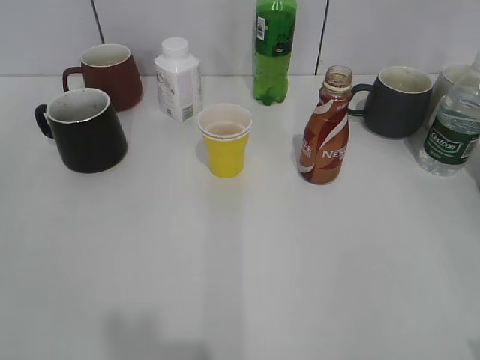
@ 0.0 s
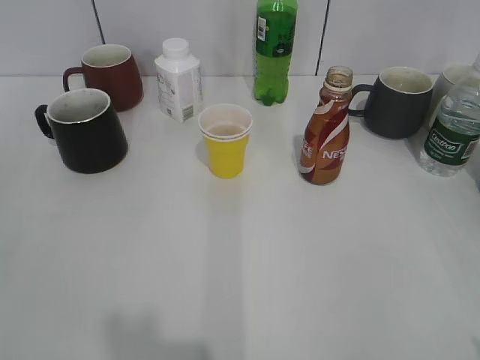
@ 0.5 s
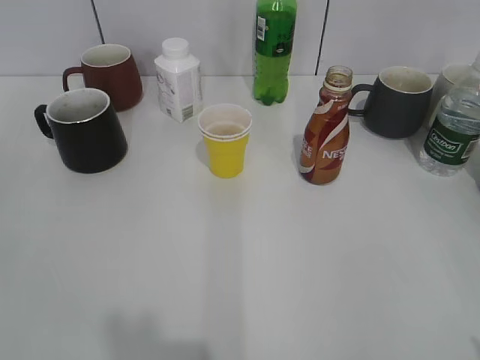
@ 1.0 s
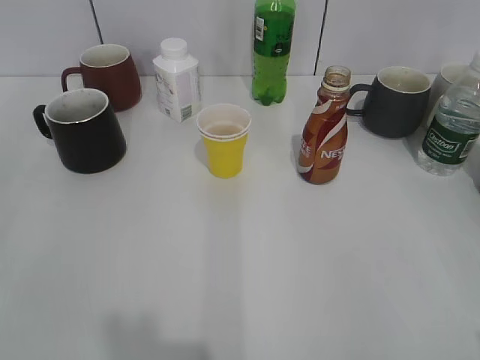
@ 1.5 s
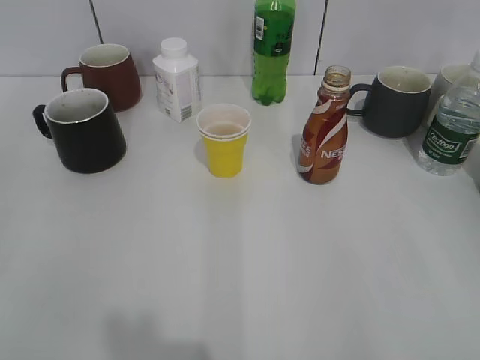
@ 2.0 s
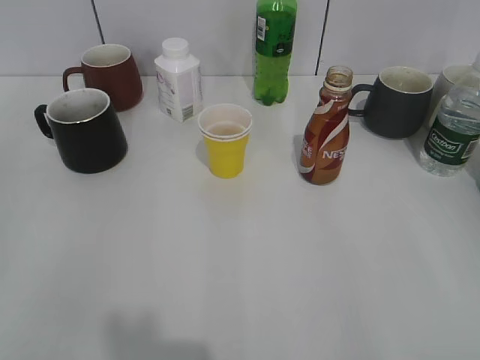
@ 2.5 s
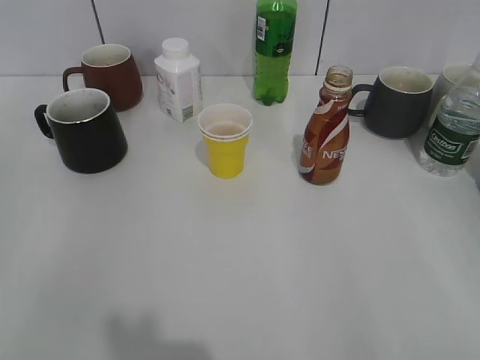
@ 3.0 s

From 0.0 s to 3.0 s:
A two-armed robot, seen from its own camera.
From 0.0 s to 1.5 s: The grippers make only small movements.
From 1.5 s to 3.0 s: The grippers move only a little.

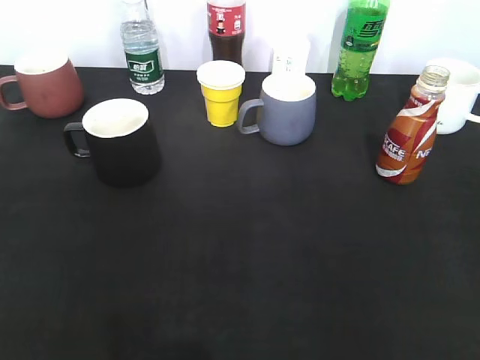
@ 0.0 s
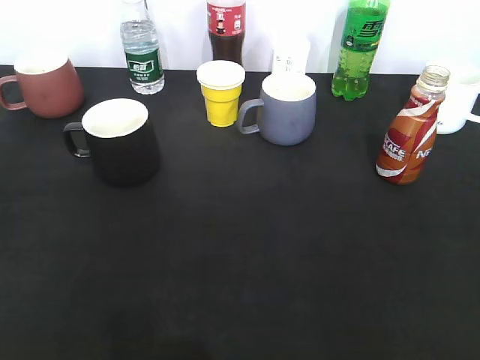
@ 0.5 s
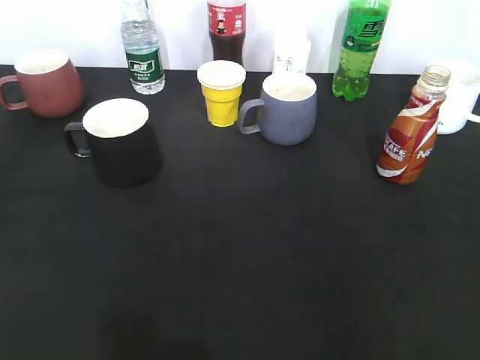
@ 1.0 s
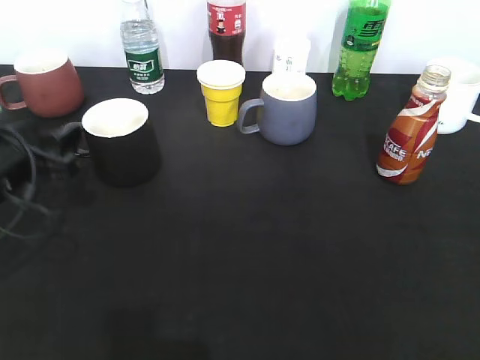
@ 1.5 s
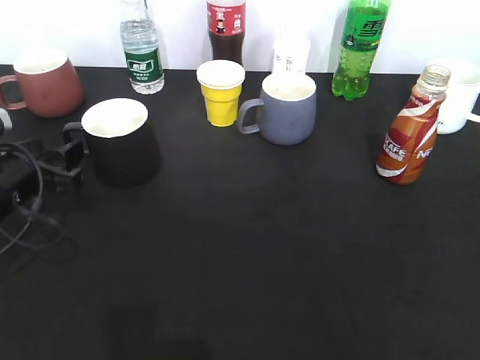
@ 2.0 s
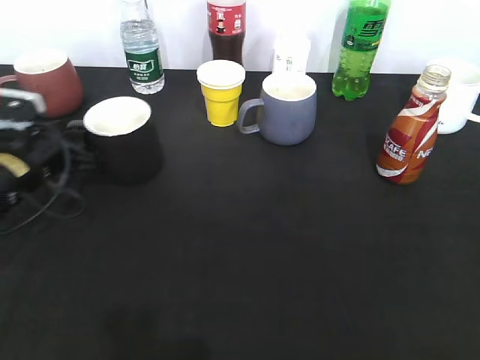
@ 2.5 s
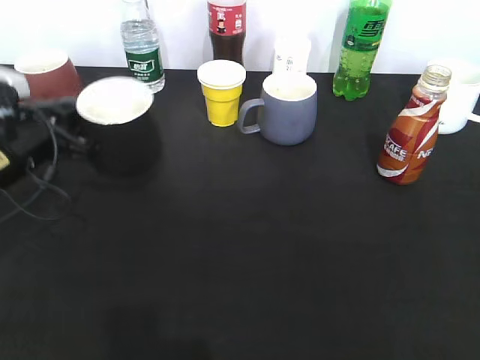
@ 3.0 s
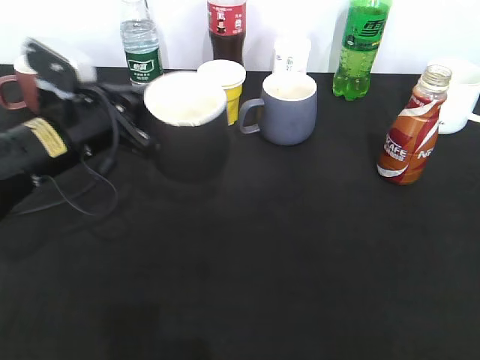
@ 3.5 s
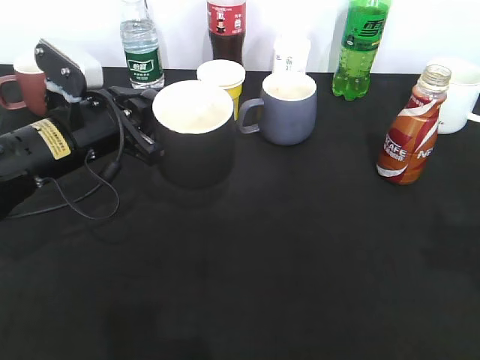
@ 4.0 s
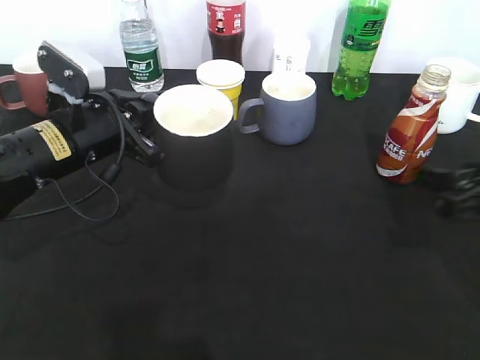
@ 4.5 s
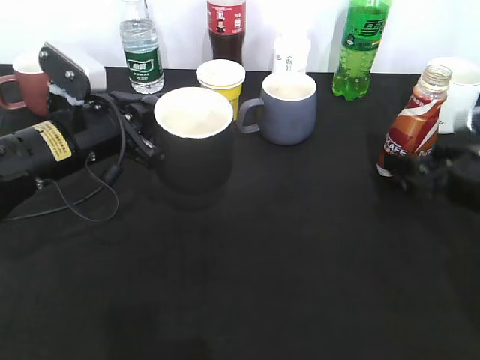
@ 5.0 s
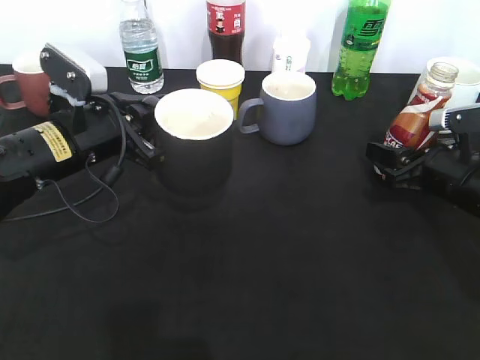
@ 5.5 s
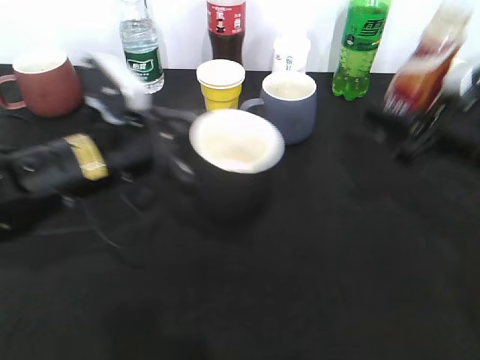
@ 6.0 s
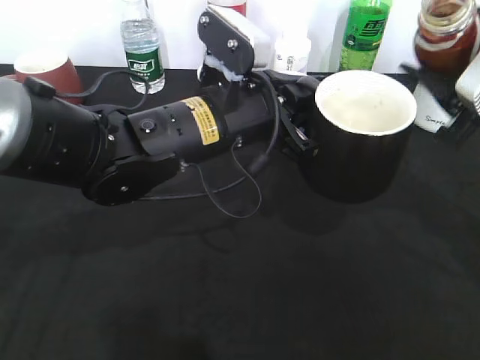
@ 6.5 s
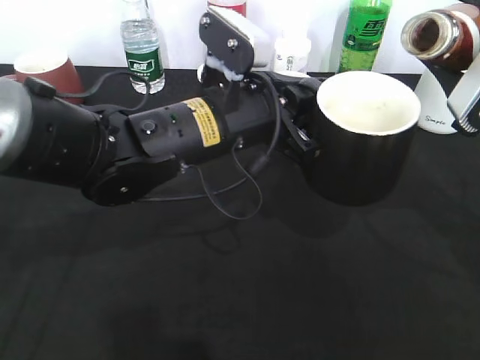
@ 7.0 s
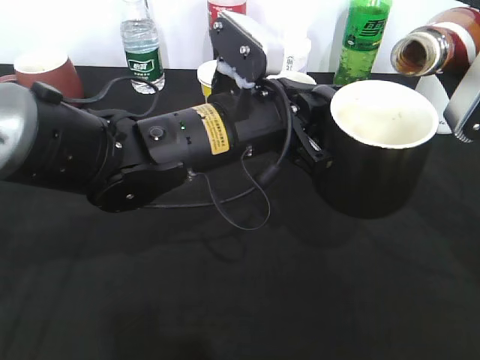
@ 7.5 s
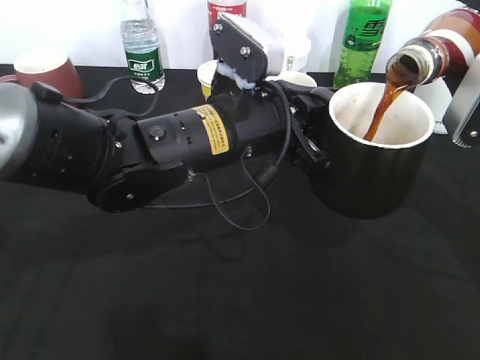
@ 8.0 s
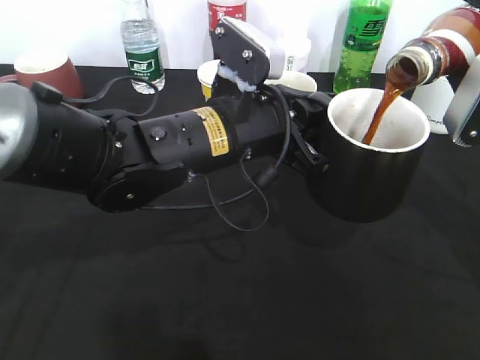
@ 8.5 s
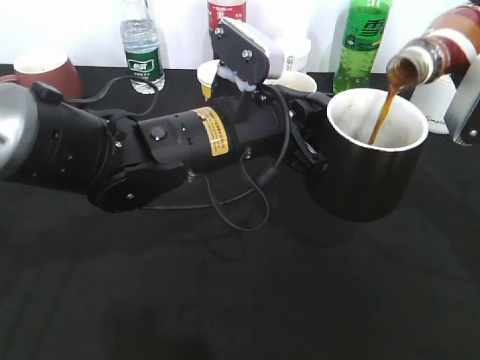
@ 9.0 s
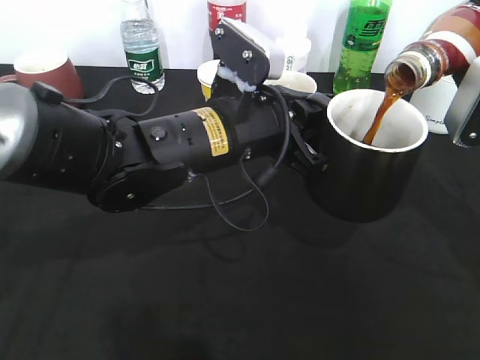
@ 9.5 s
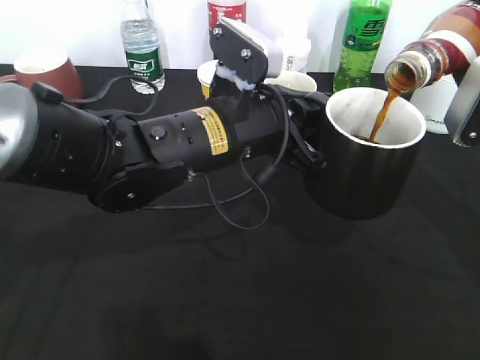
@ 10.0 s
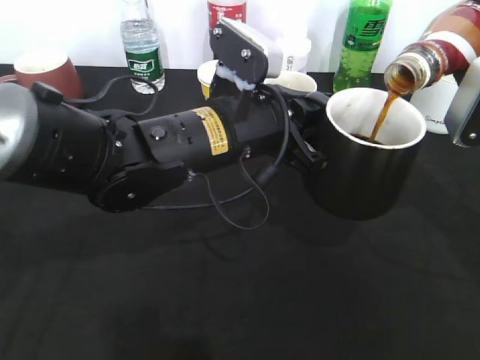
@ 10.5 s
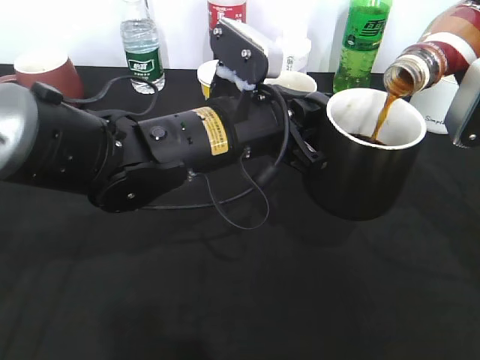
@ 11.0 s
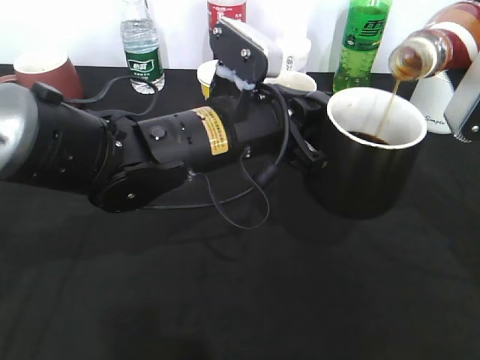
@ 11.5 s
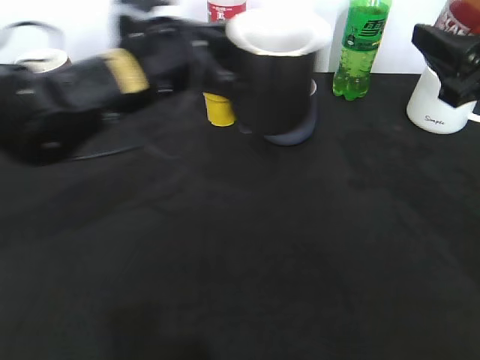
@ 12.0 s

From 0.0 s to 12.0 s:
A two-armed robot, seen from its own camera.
Step, from 1.0 s to 2.5 s: Grasp the black cup with left gripper.
Step, from 4.0 s to 5.0 s: Grasp the bottle with coffee with right gripper.
Step, from 6.0 s to 11.5 s: Pour the coffee from bottle to cup with right gripper.
From 0.0 s to 2.0 s: The left gripper travels forward and downward by some 30 cm.
From 2.0 s to 4.0 s: The right gripper goes some 15 cm forward. Meanwhile the left gripper heads to the right, covering some 10 cm, and closes its fingers.
From 4.0 s to 6.0 s: The right gripper heads forward and downward, covering roughly 20 cm, and closes. Meanwhile the left gripper changes place by approximately 5 cm.
From 6.0 s to 8.0 s: The right gripper heads upward, covering approximately 5 cm. The left gripper is displaced to the right by approximately 10 cm.
From 8.0 s to 10.0 s: The grippers move only a little.
From 10.0 s to 12.0 s: The left gripper shifts roughly 10 cm to the left.

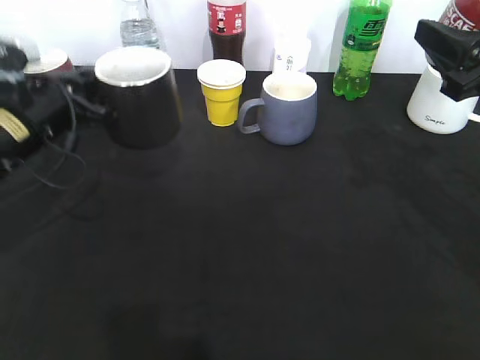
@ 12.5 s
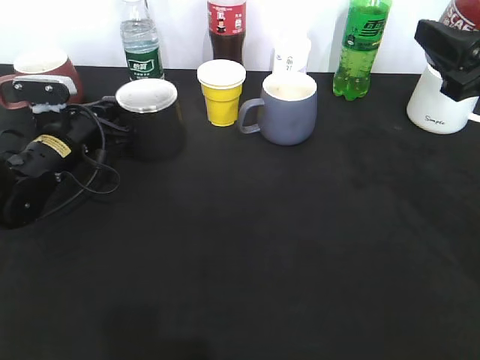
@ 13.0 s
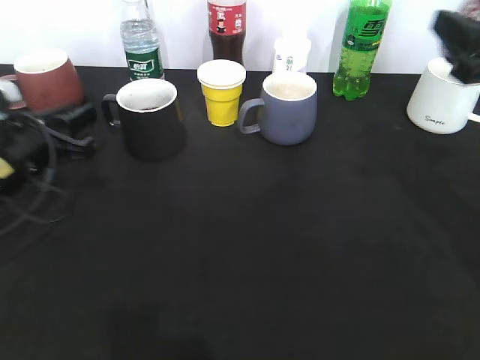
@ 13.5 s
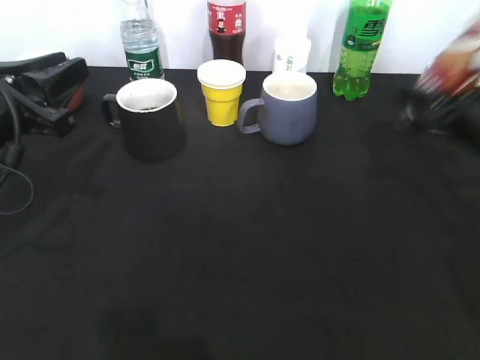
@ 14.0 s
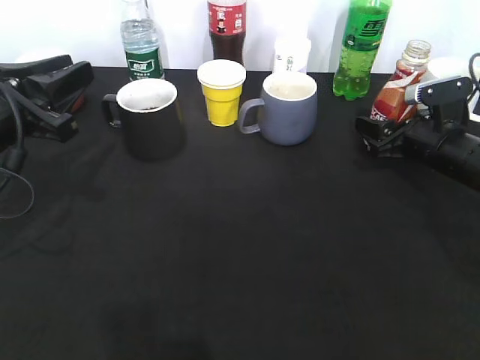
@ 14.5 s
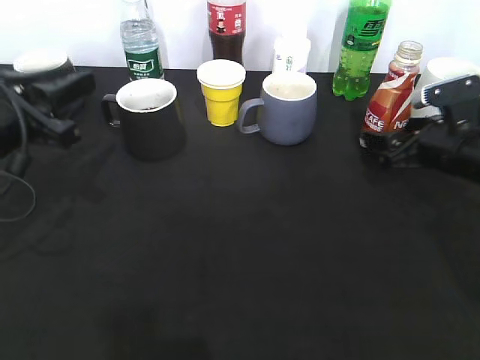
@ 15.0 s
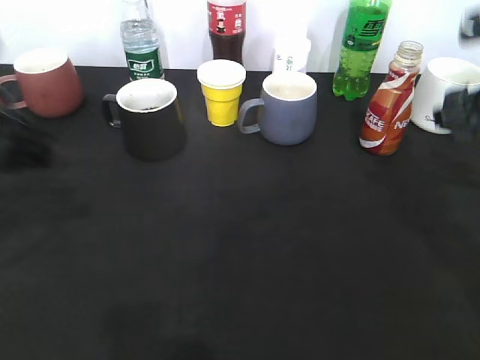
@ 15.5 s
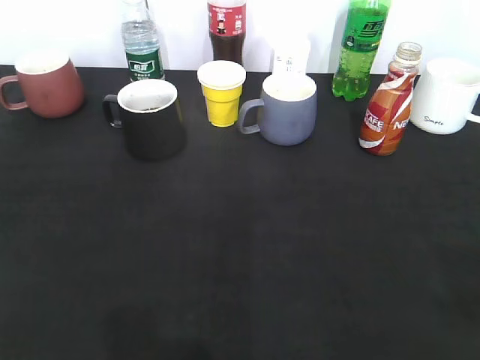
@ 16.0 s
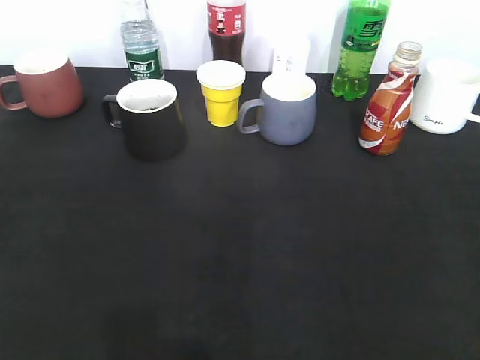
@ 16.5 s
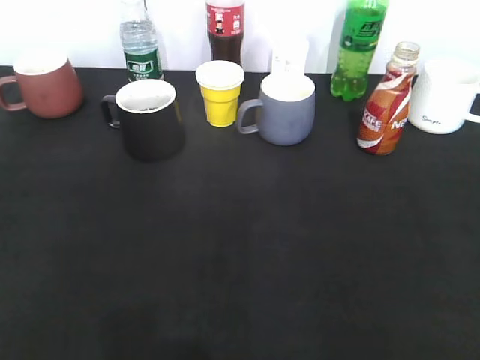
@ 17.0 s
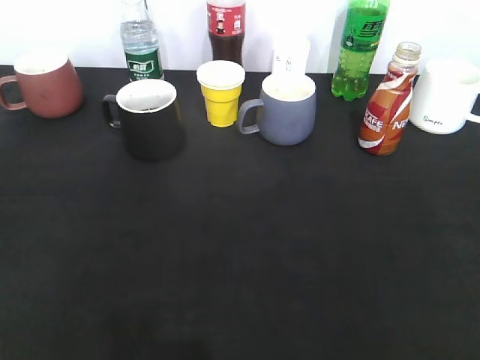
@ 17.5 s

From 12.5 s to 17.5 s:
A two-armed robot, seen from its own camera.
Step, from 13.5 s to 15.0 s: Place the coffee bottle on the table with right gripper.
From 12.5 s to 15.0 s: The left gripper travels backward by about 5 cm, and opens its fingers. Meanwhile the right gripper goes about 15 cm downward and forward, and opens.
From 15.0 s to 17.5 s: The left gripper shifts about 25 cm backward. Meanwhile the right gripper shifts approximately 35 cm backward and upward, and closes up.

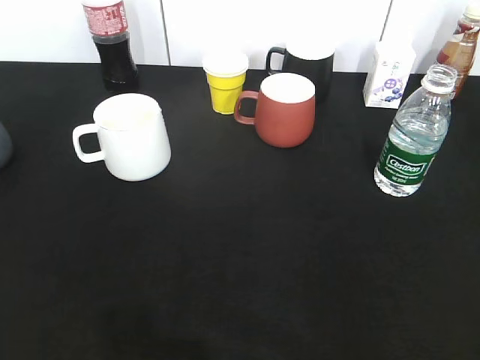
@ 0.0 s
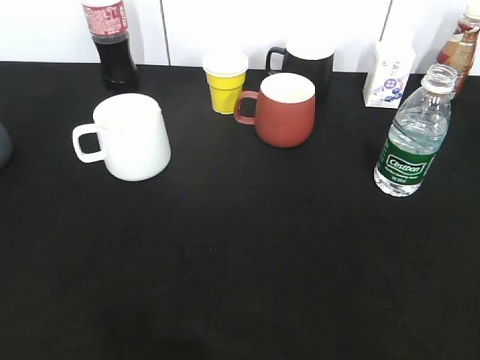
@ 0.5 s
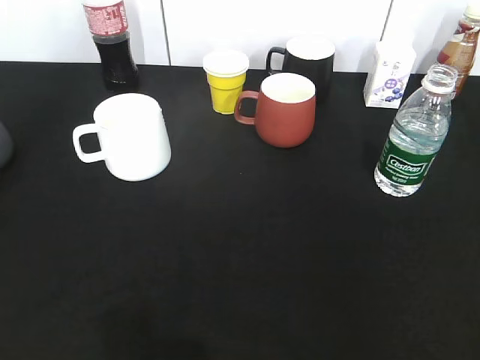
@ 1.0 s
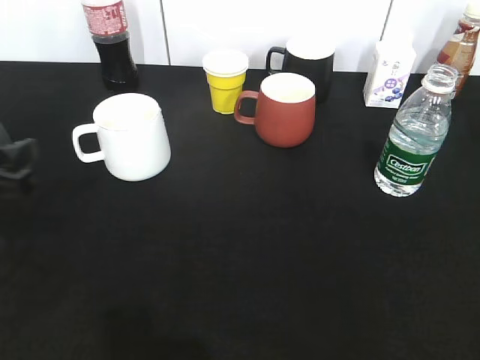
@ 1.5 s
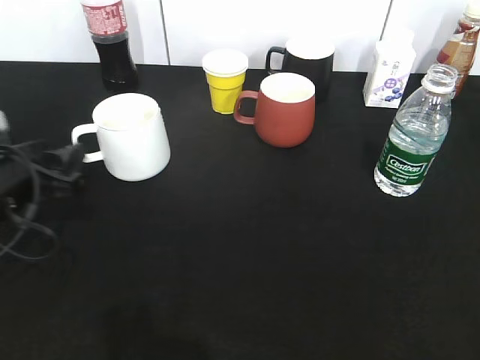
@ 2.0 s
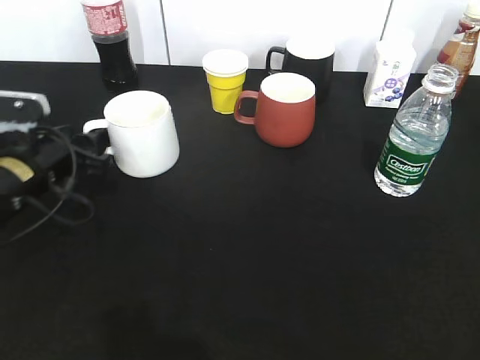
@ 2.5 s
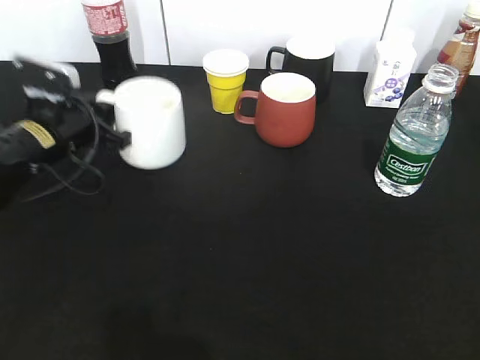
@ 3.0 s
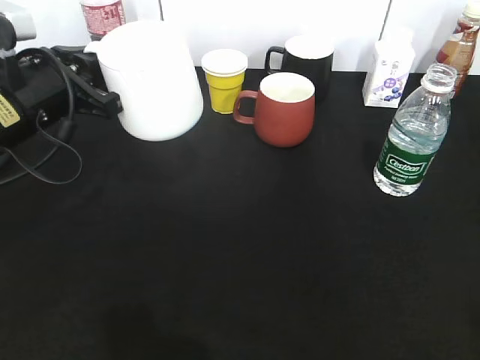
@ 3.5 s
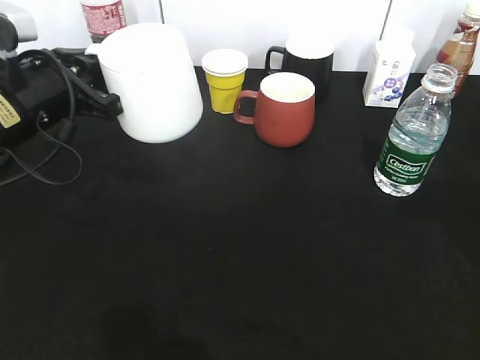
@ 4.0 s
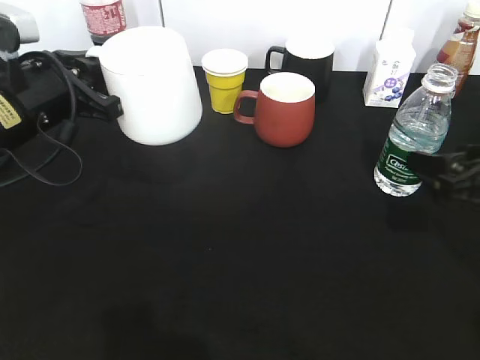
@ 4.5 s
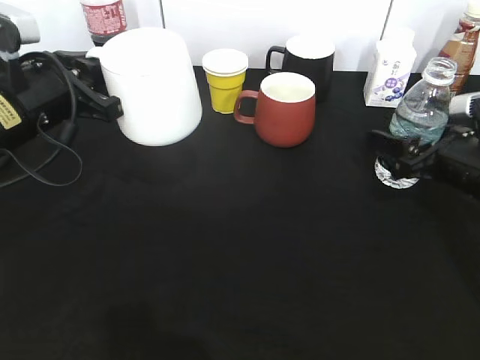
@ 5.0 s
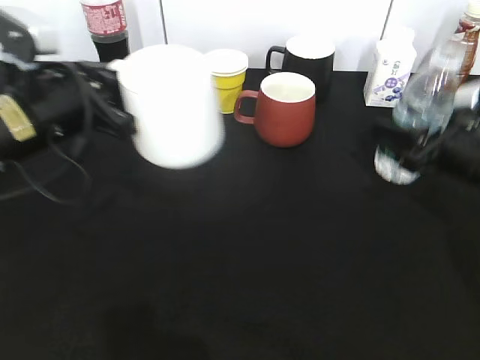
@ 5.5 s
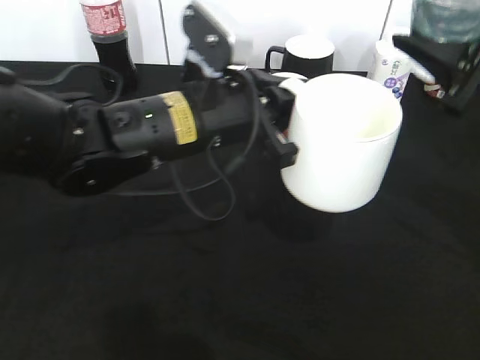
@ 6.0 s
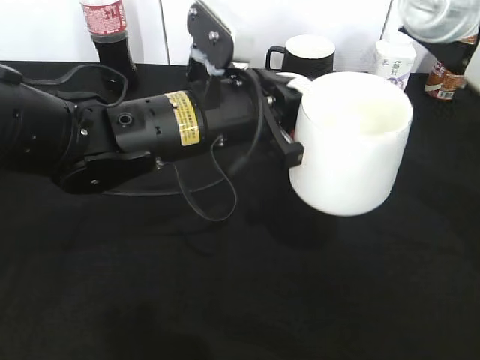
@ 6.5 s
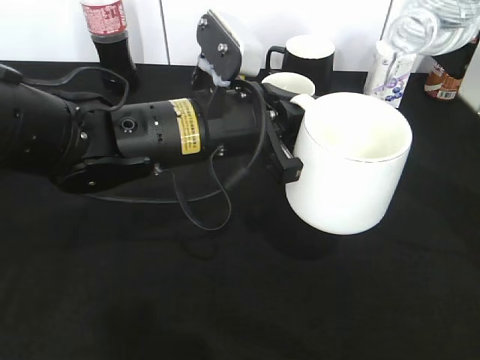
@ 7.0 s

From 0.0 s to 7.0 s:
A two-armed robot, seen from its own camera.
Step, from 1.0 s to 2.5 s: Grasp the white cup with left gripper.
Step, from 3.5 s to 5.0 s: Grasp the bottle with water with right gripper.
From 0.0 s to 2.0 s: The left gripper moves forward and downward, some 30 cm, and opens up.
From 2.0 s to 3.5 s: The left gripper shifts roughly 10 cm upward and forward, and closes. The right gripper changes place by roughly 5 cm.
From 3.5 s to 5.0 s: The right gripper is displaced forward and downward by roughly 35 cm, and opens its fingers.
From 5.0 s to 7.0 s: The left gripper goes roughly 15 cm to the right, while the right gripper shifts some 15 cm upward, and closes up.
